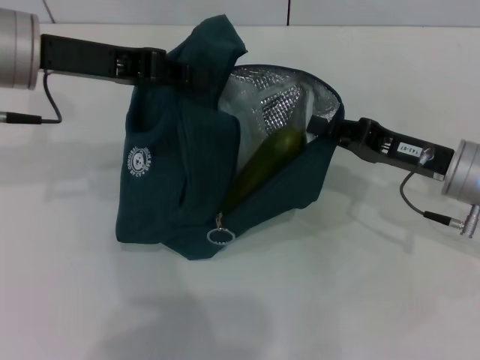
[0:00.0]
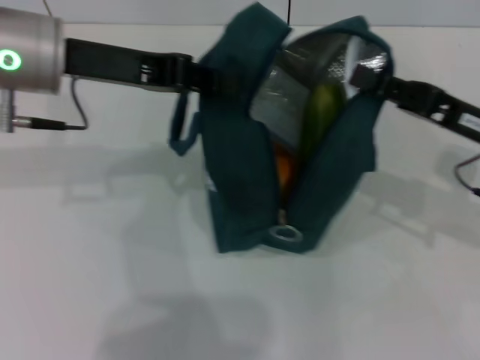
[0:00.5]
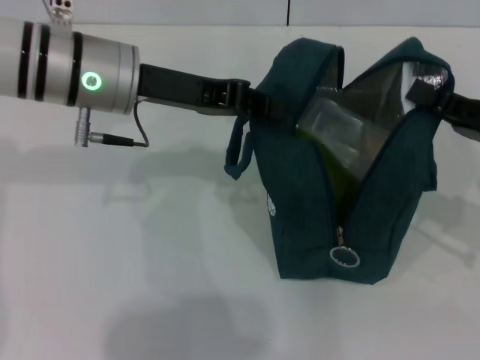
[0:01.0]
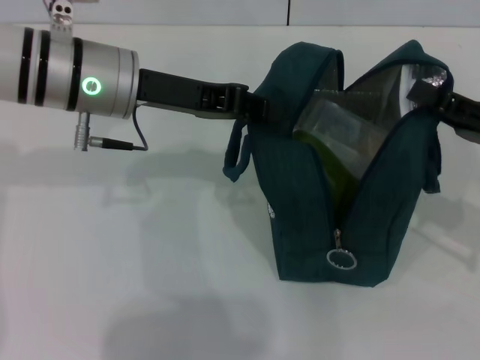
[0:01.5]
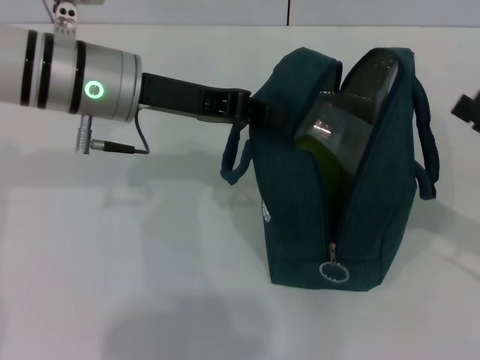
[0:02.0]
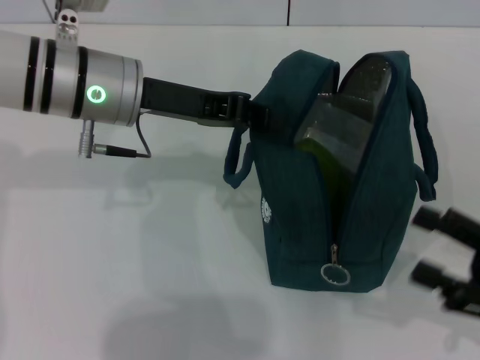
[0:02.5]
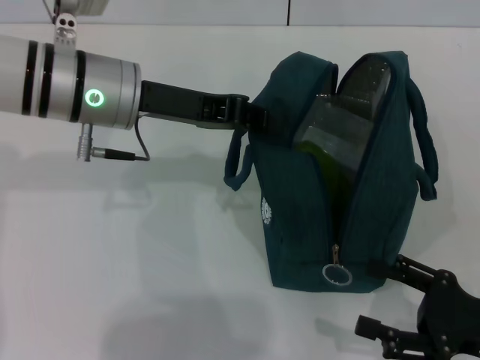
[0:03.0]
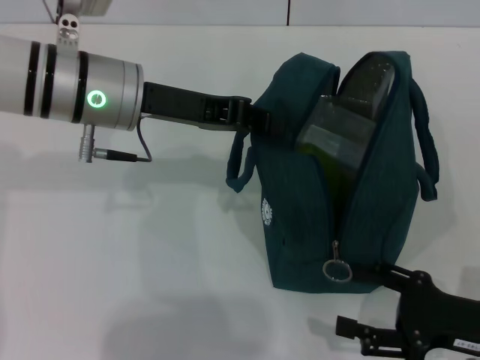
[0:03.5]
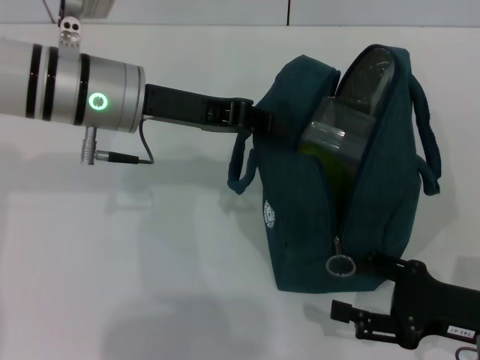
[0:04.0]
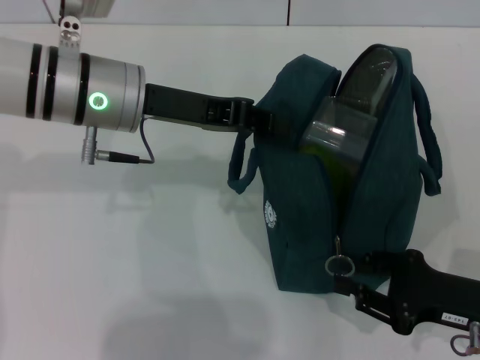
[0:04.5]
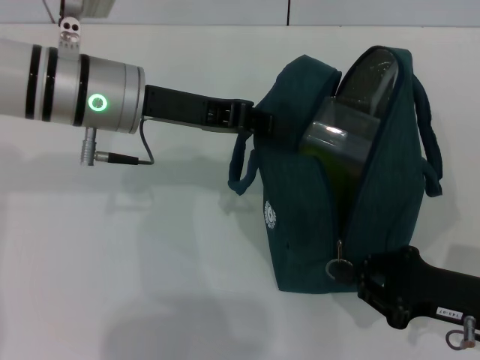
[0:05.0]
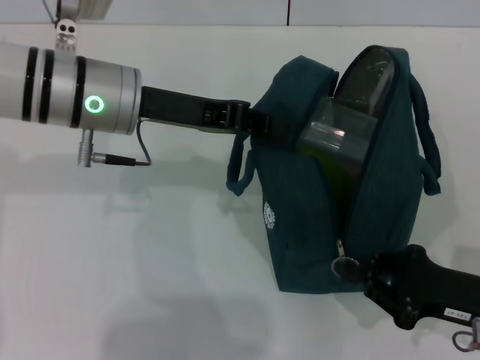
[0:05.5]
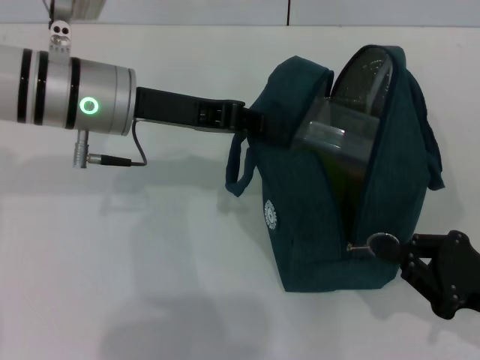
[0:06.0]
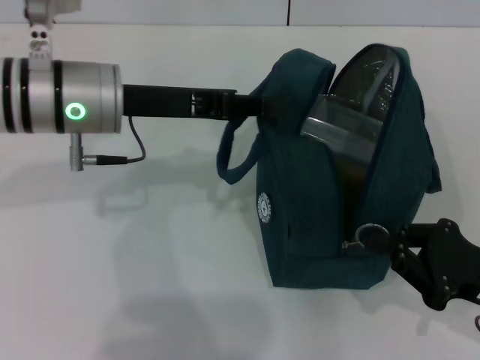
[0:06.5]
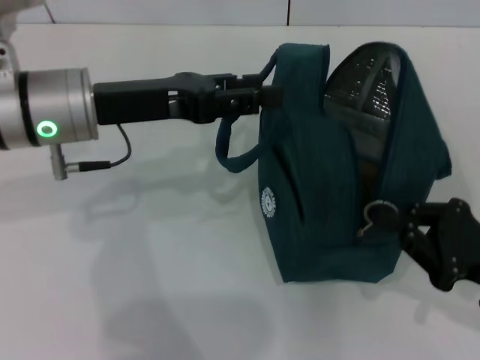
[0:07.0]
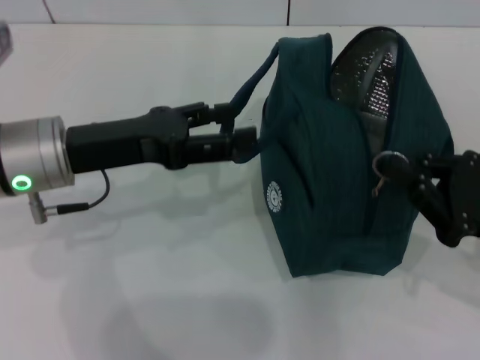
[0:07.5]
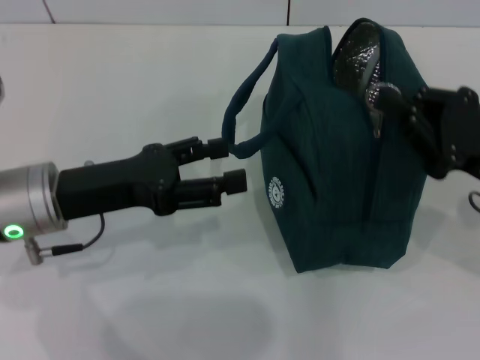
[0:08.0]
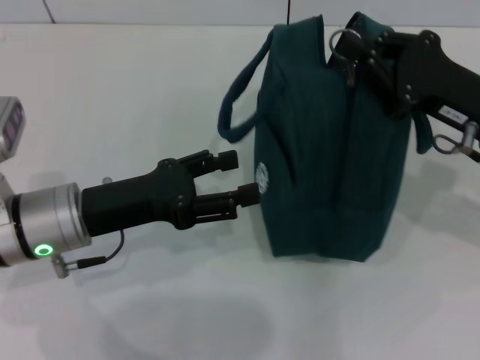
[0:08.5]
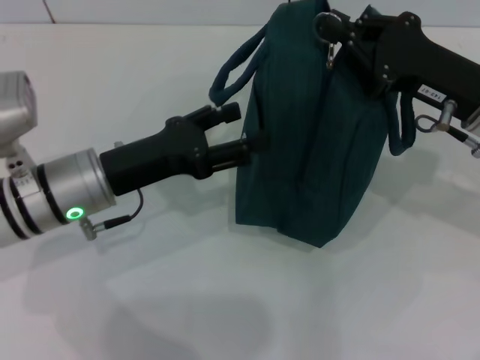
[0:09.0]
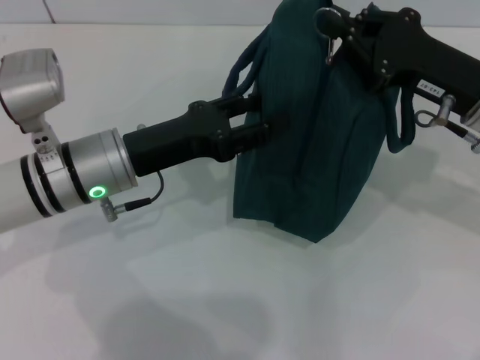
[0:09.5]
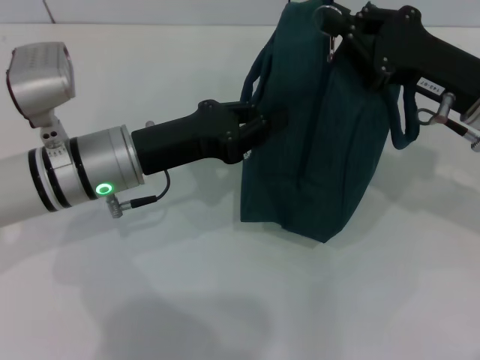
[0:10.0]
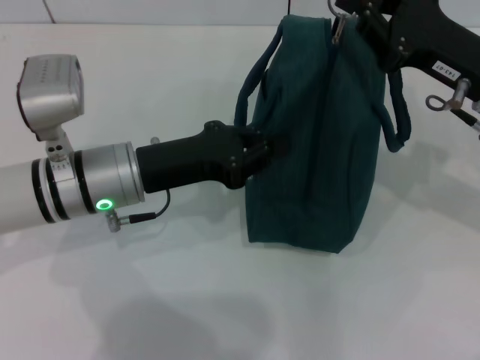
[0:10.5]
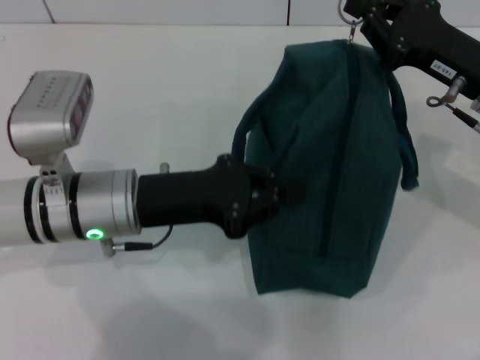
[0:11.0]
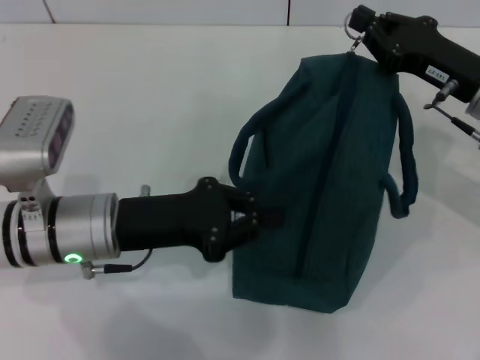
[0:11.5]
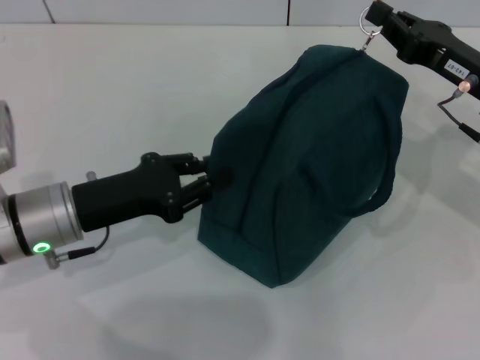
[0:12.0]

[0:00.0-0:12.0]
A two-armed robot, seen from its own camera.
Step, 0:02.0 to 0:07.0: Hold the lunch bag with your left hand.
0:00.0 to 0:02.0: The right gripper goes about 15 cm to the right and backward. Meanwhile the left gripper shifts approximately 5 cm to the right.
0:02.0 to 0:04.0: The right gripper moves downward and to the left, approximately 10 cm.
0:04.0 to 0:06.0: The right gripper closes.
0:06.0 to 0:08.0: The left gripper shifts about 10 cm backward, to the left and downward, and opens; the right gripper goes roughly 10 cm forward and upward.
0:08.0 to 0:10.0: The left gripper shifts some 5 cm to the right, and closes up. The right gripper travels forward by some 5 cm.
0:10.0 to 0:12.0: The left gripper travels to the left by approximately 5 cm.

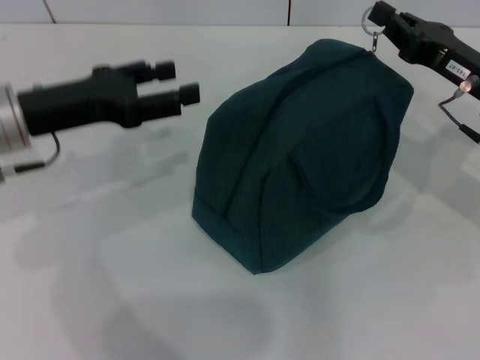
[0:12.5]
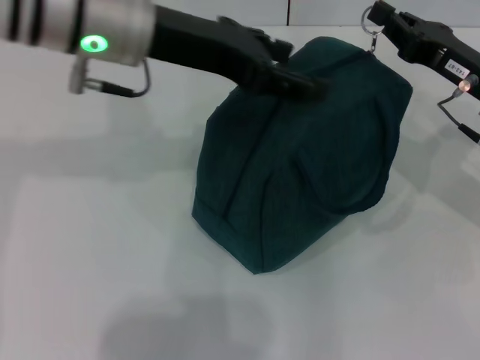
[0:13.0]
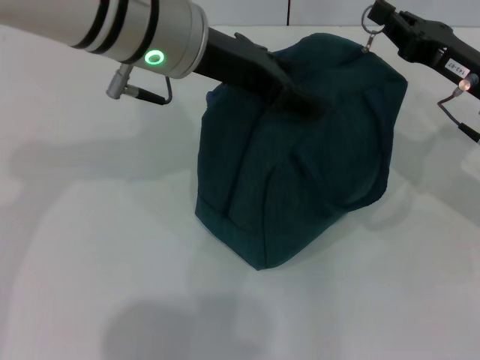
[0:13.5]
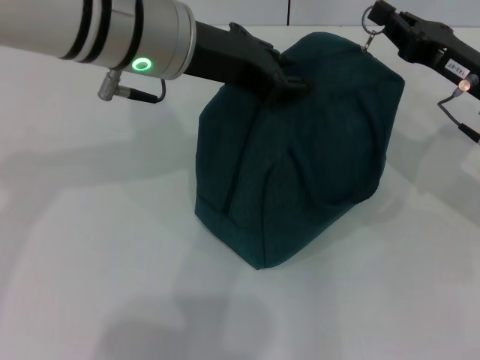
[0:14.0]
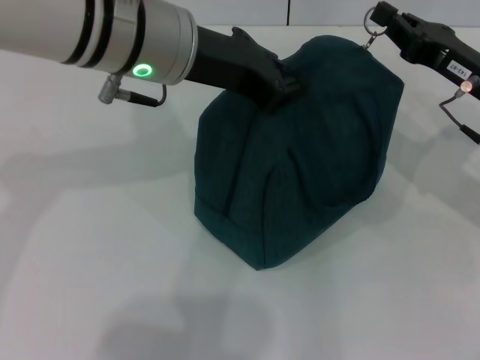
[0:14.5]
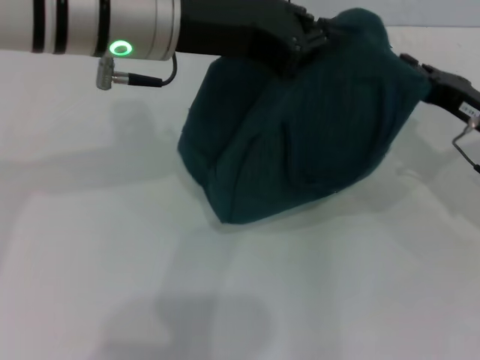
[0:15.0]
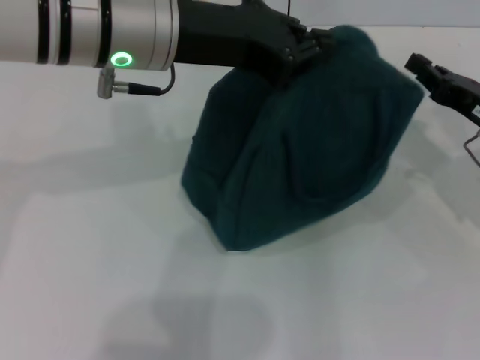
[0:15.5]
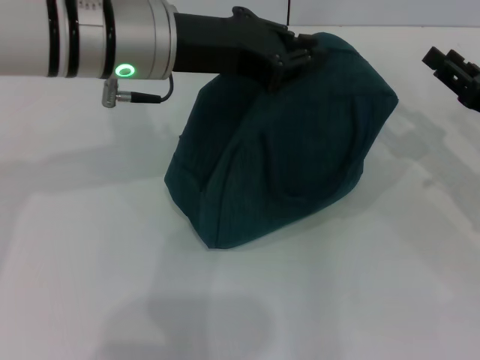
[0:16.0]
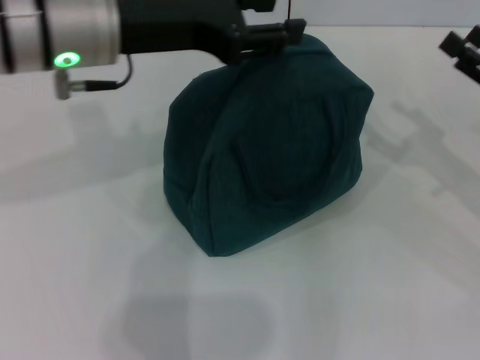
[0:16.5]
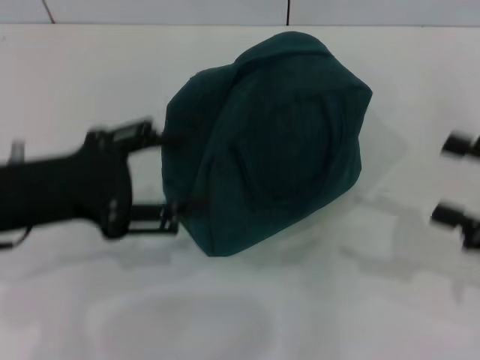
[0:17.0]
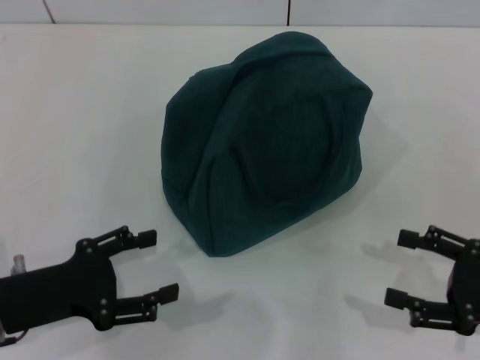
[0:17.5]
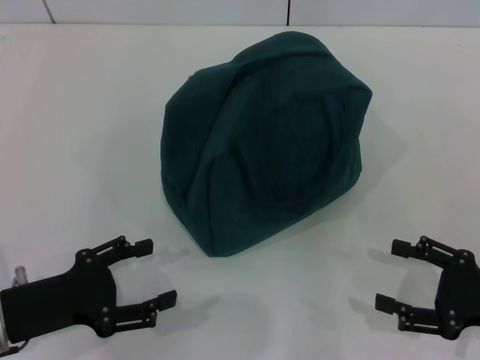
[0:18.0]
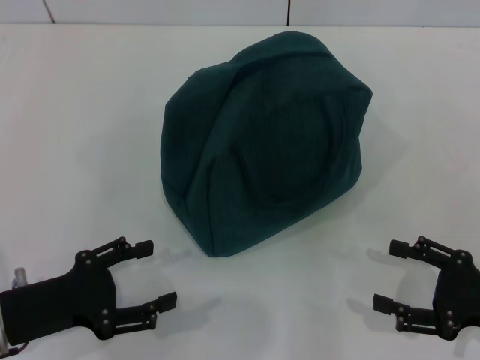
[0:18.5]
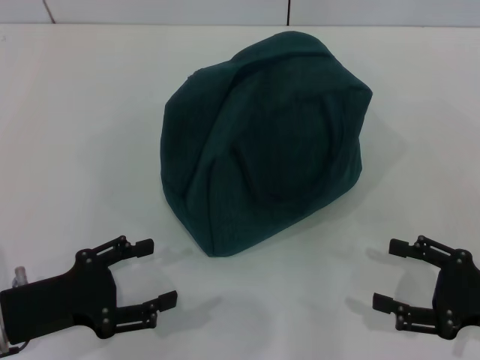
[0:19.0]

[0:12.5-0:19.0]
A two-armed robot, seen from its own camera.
Step, 0:12.5 to 0:15.0: Zip up the lunch bag with your right hand.
0:12.5 to 0:14.5: The left gripper goes some 15 cm to the right and upward, and closes its fingers.
0:14.5 to 0:17.0: The left gripper shifts about 20 cm to the left, backward and downward, and opens its fingers; the right gripper moves backward and to the right, roughly 15 cm, and opens.
0:17.0 to 0:19.0: The right gripper moves downward, roughly 10 cm; the left gripper shifts about 15 cm downward and backward.

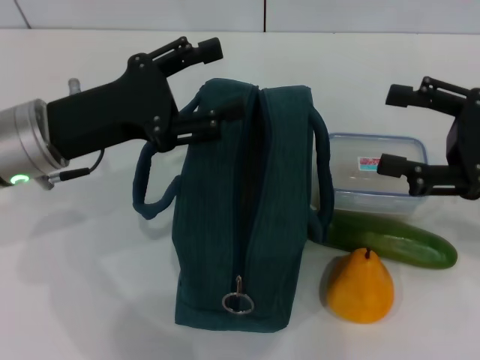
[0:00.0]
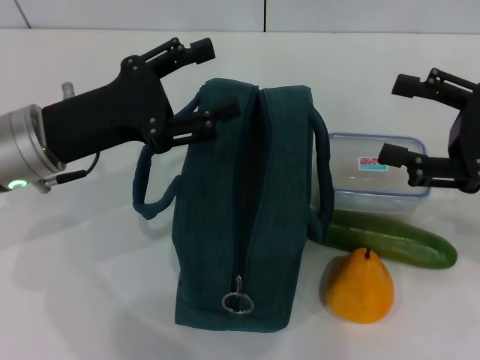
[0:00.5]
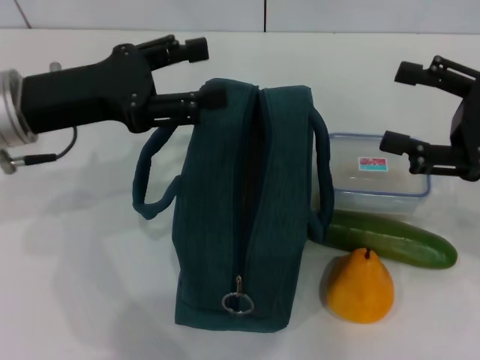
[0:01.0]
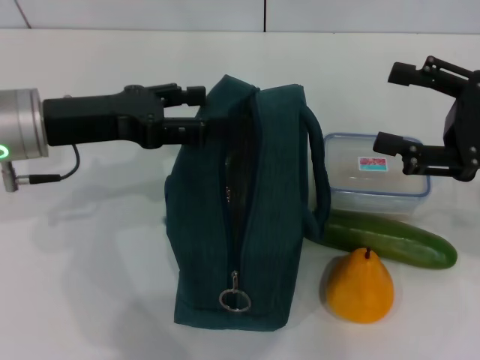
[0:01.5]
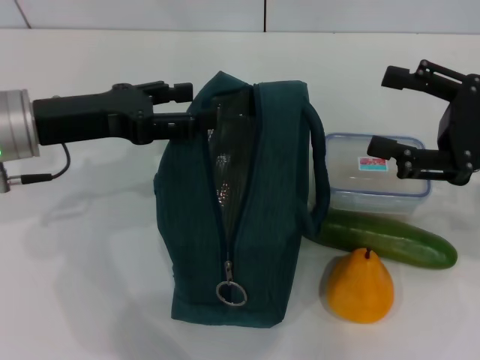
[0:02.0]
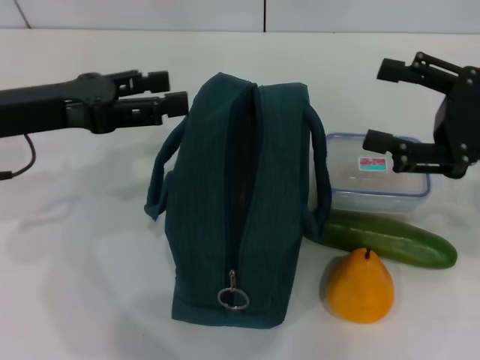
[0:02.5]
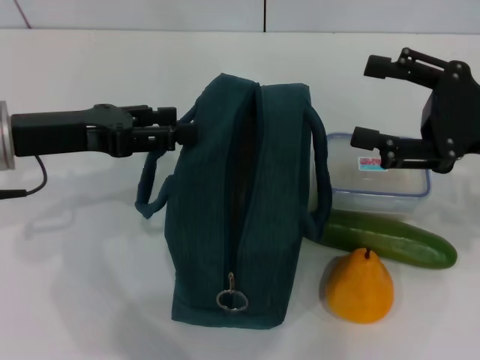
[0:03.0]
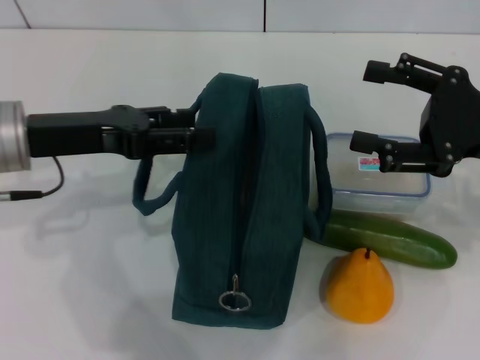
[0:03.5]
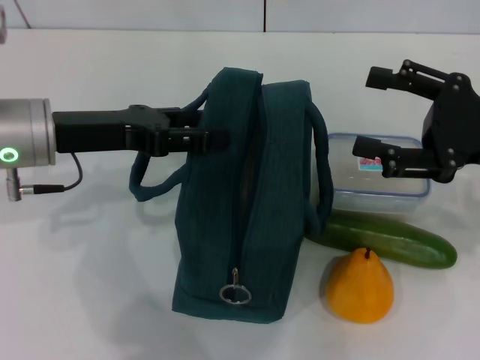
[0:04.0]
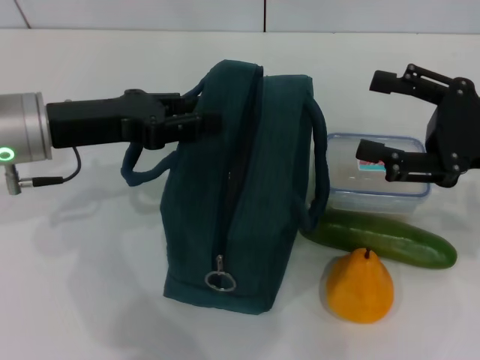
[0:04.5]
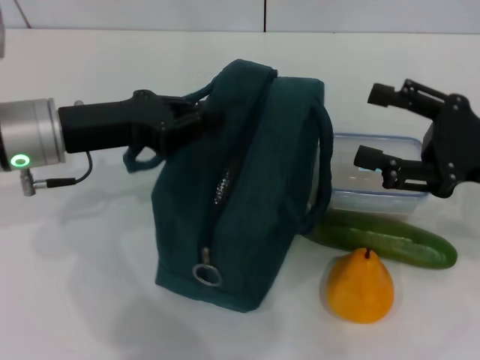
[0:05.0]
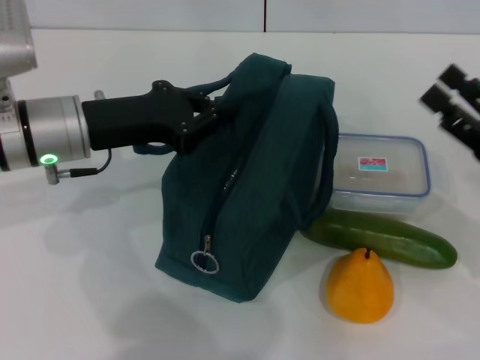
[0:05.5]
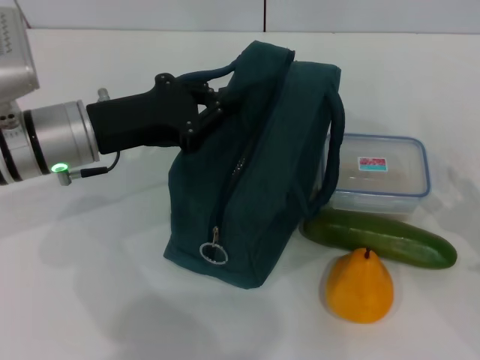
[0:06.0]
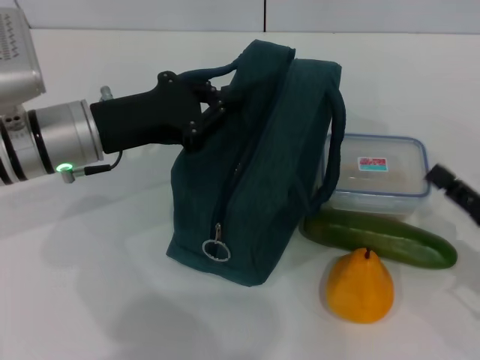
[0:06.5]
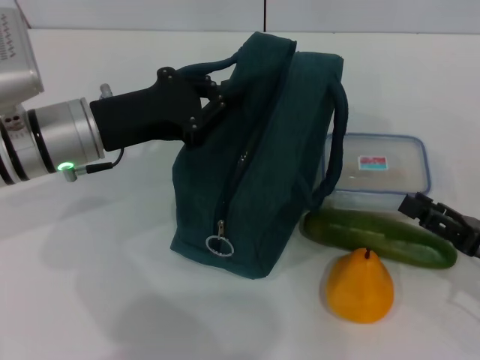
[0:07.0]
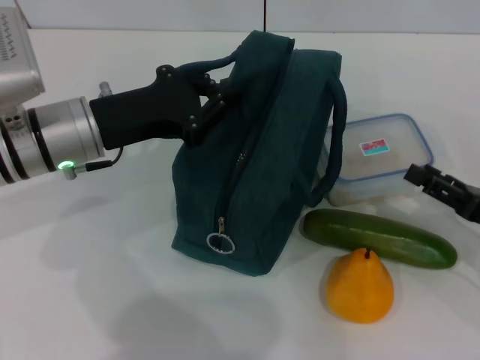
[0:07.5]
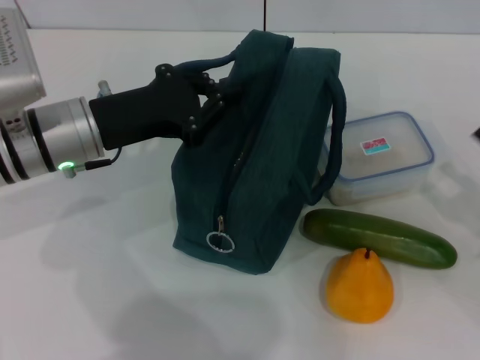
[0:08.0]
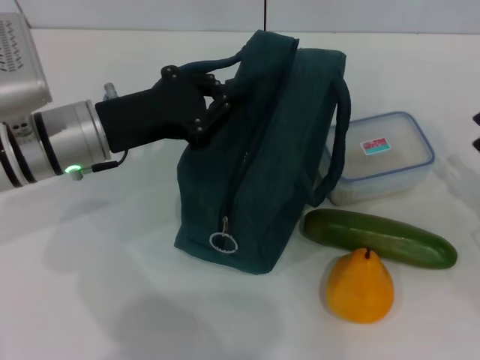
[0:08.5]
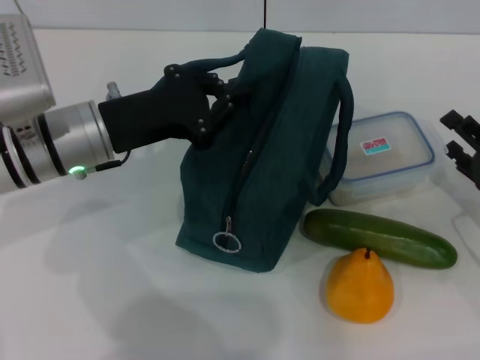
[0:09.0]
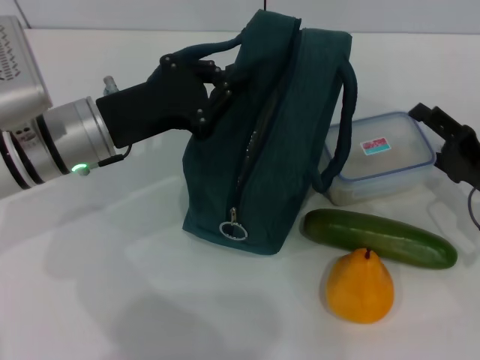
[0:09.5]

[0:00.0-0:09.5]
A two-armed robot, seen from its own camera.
Step, 0:00.0 to 0:06.0: Hold the lunch bag with your left hand.
0:02.0 to 0:04.0: There are only small adjustments of the grippers.
0:04.0 to 0:05.5: The left gripper closes its fingers; the right gripper moves downward, some 5 cm.
0:05.5 to 0:07.5: The right gripper moves roughly 5 cm.
0:07.5 to 0:09.5: The right gripper travels forward by about 5 cm.
